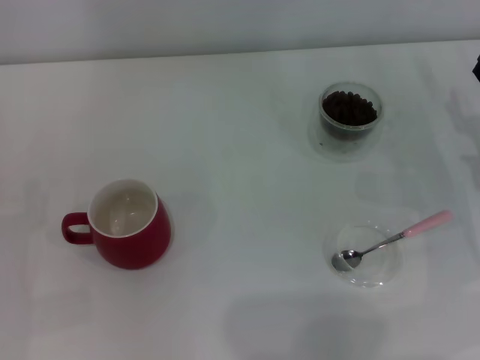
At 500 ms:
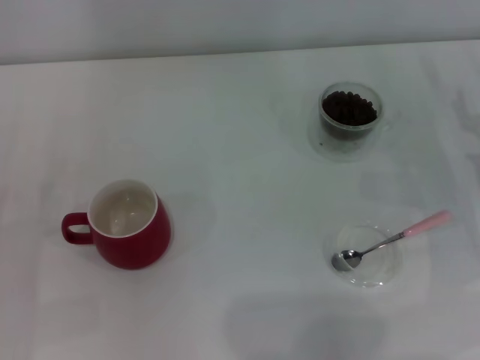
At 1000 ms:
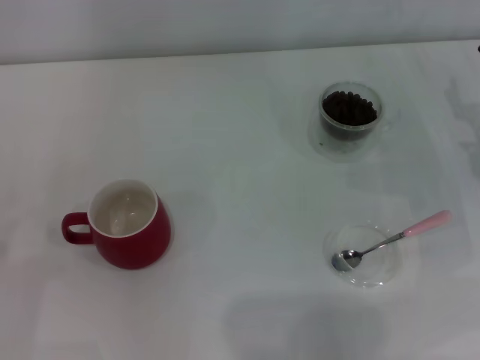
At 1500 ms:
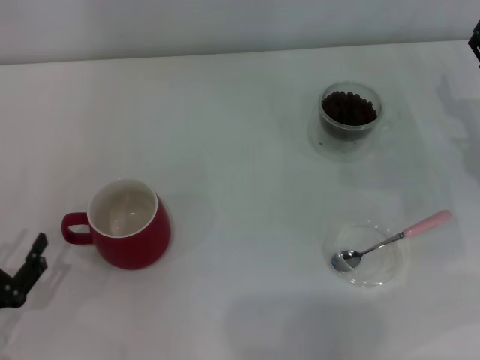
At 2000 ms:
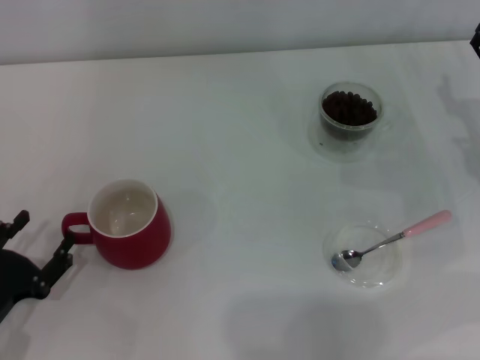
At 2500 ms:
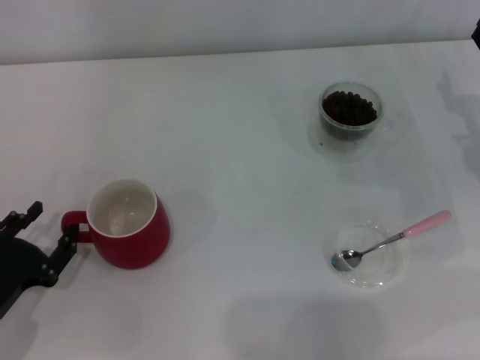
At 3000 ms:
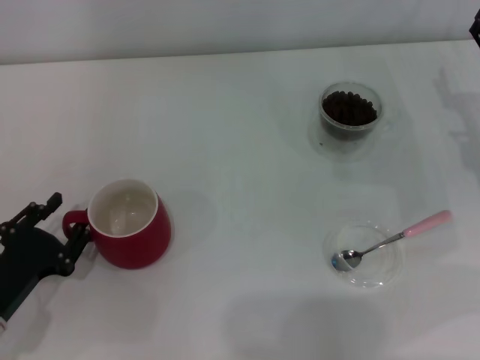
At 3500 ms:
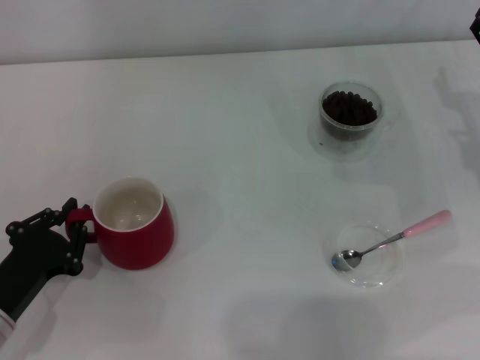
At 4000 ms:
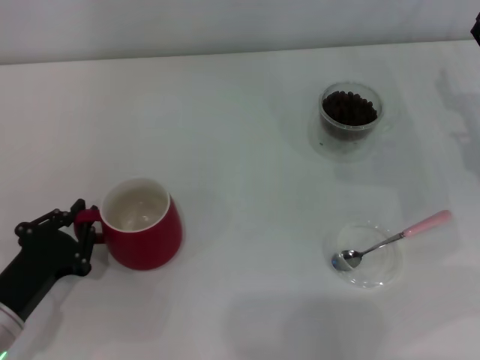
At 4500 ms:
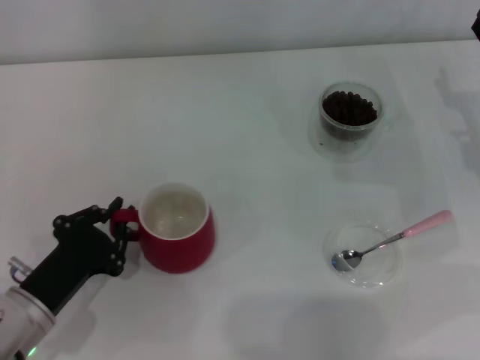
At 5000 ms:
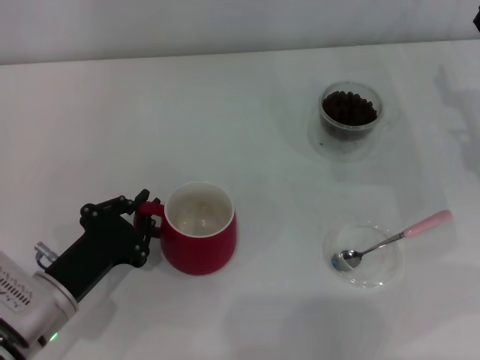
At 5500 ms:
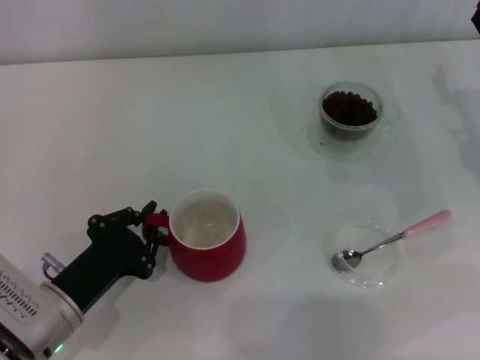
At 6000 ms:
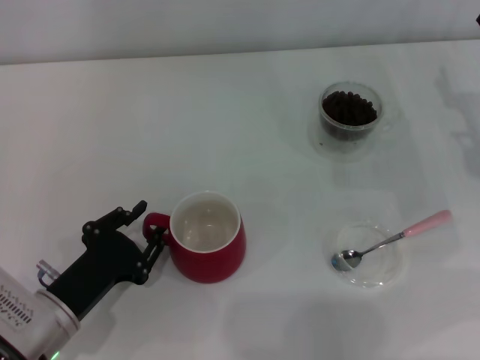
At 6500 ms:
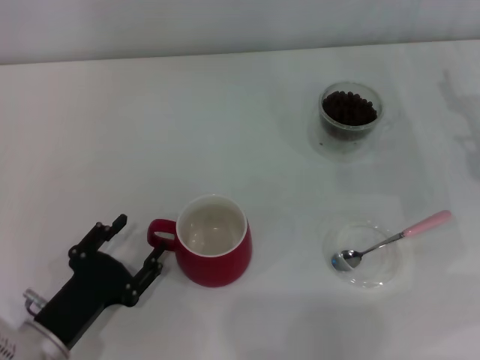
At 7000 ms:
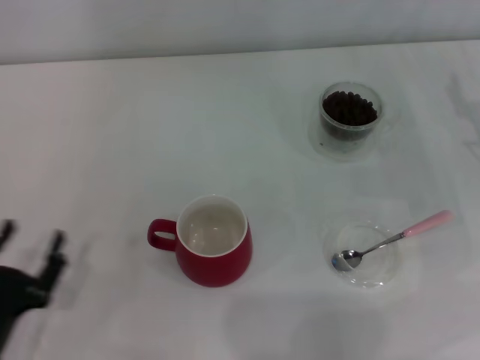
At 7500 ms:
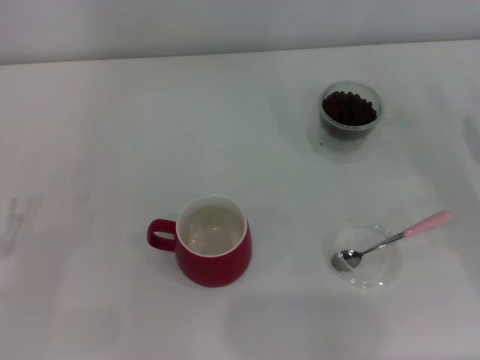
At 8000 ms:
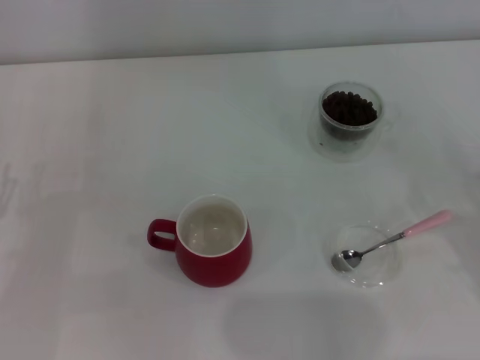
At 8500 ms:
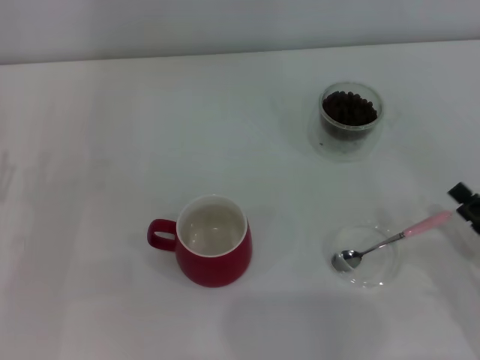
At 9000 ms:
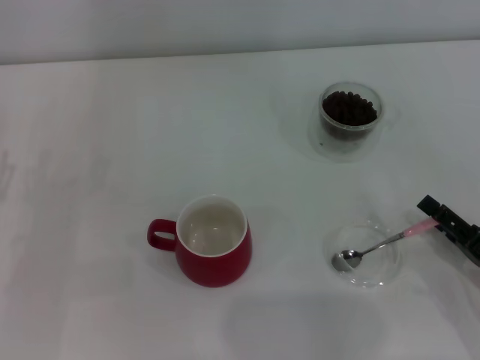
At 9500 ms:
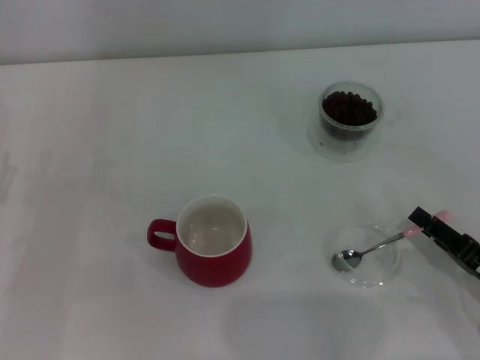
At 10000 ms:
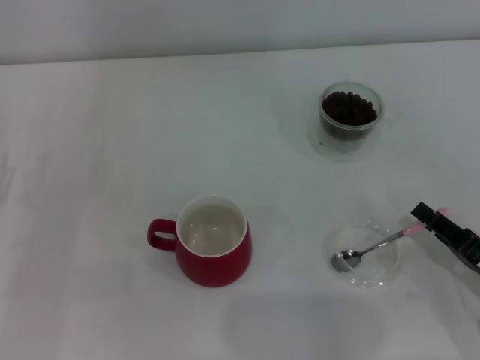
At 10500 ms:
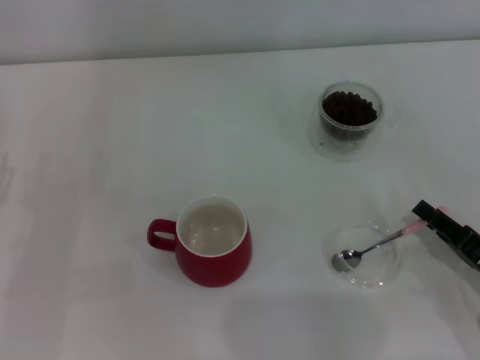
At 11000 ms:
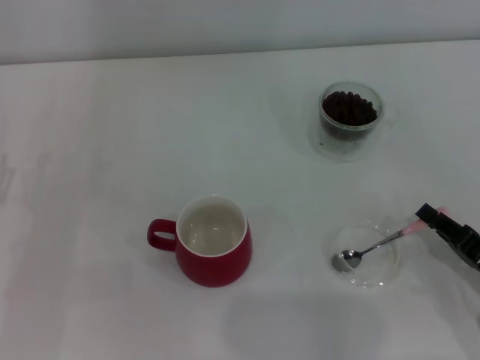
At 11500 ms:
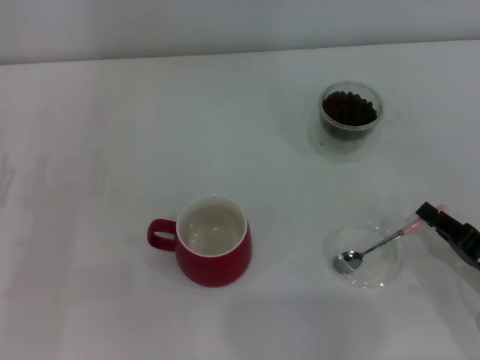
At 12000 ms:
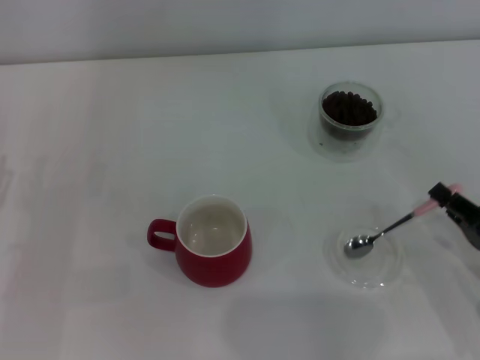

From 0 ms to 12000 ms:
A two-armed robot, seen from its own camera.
Task of the whole recording: Use a pink spoon to take out the coffee beans from the glass and pour them into the red cup.
Step, from 0 ms to 6500 ms: Move the cup to the center of view with the left gripper.
From 0 ms to 2000 ms: The left gripper ends up about 5 cm from where it was.
From 2000 ms to 4000 ms: The left gripper closes its fingers.
From 4000 ms to 6000 ms: The grippers move only a little.
From 6000 ms to 8000 ms: The right gripper moves backward, roughly 15 cm; the left gripper is displaced to the left by approximately 10 cm, and opens.
From 8000 ms to 10000 ms: The right gripper moves about 5 cm, and closes up.
From 10000 ms to 12000 ms: The right gripper closes its fingers.

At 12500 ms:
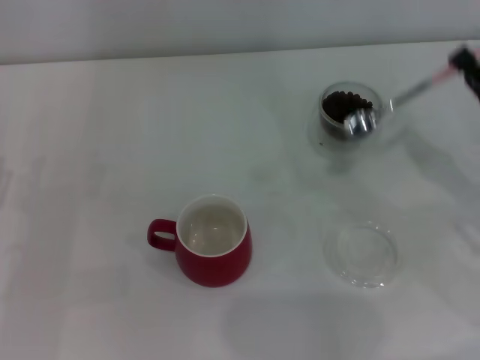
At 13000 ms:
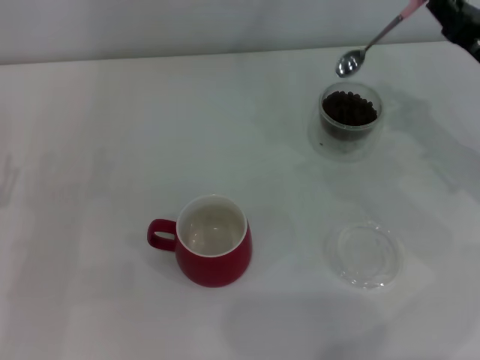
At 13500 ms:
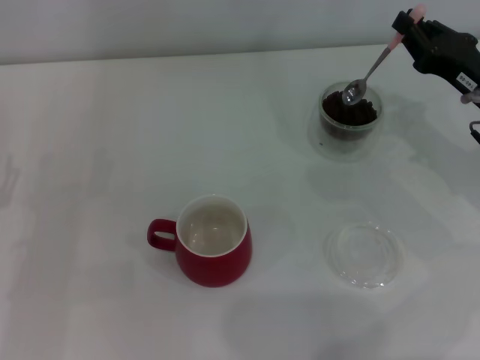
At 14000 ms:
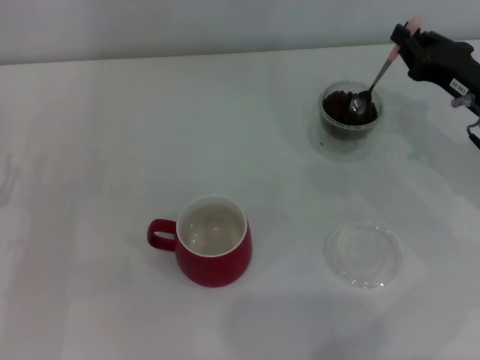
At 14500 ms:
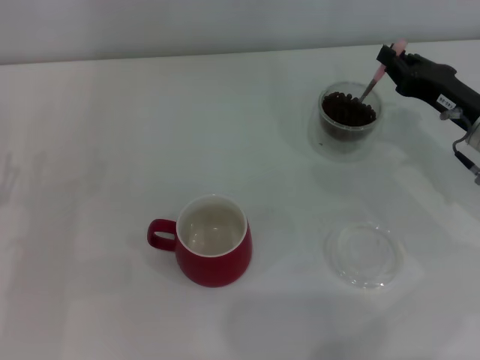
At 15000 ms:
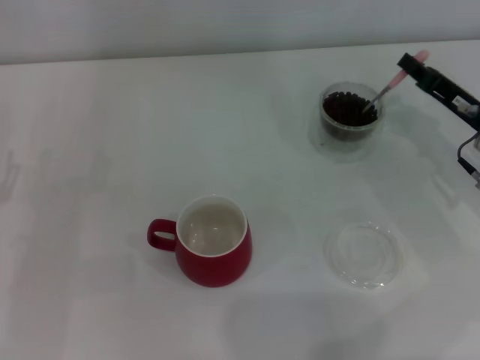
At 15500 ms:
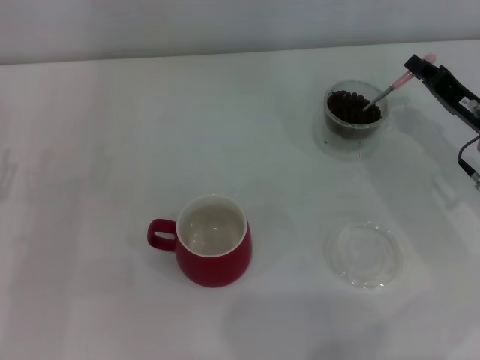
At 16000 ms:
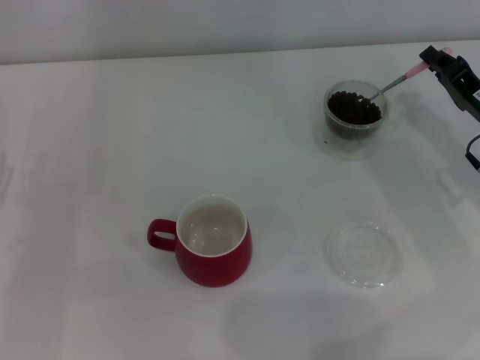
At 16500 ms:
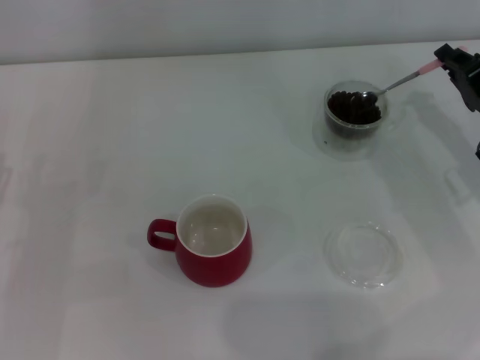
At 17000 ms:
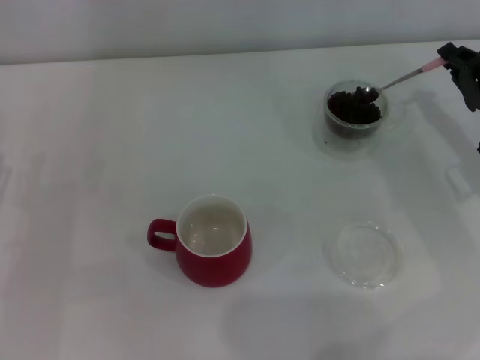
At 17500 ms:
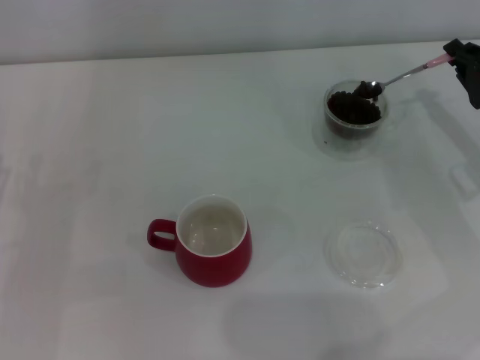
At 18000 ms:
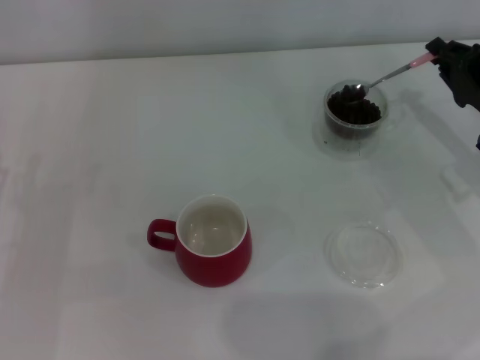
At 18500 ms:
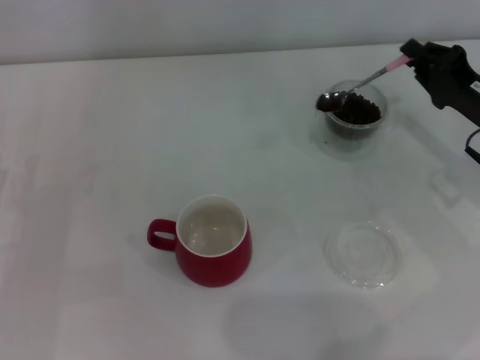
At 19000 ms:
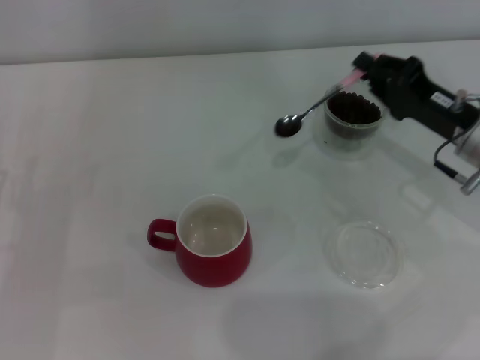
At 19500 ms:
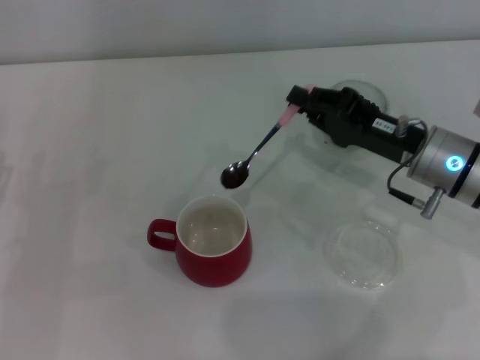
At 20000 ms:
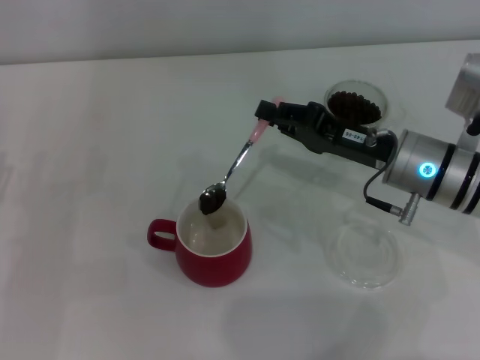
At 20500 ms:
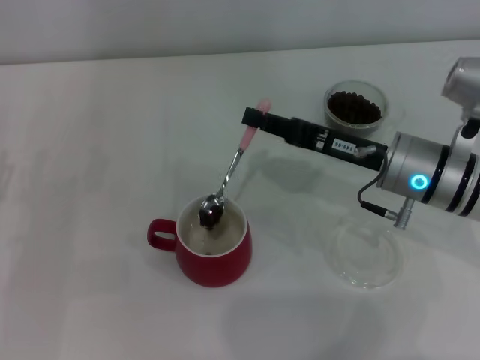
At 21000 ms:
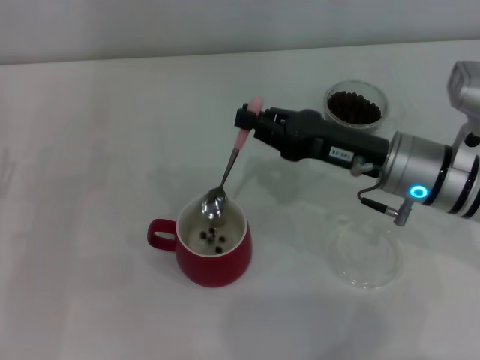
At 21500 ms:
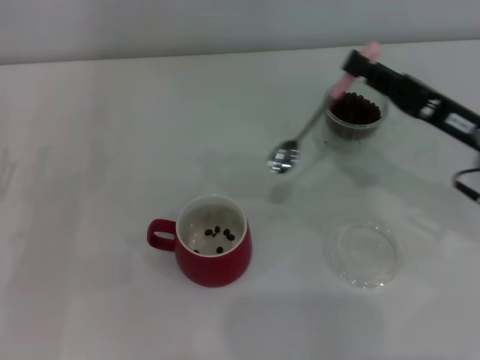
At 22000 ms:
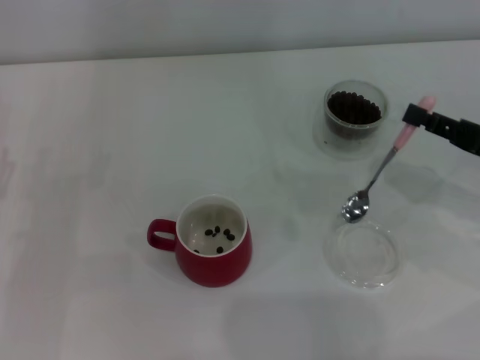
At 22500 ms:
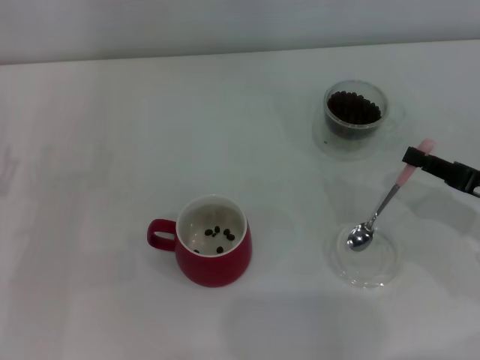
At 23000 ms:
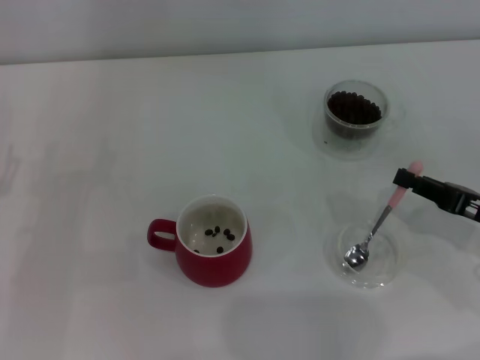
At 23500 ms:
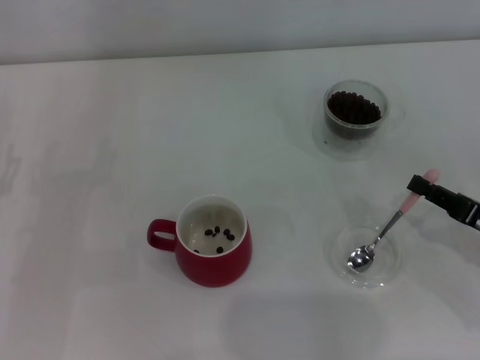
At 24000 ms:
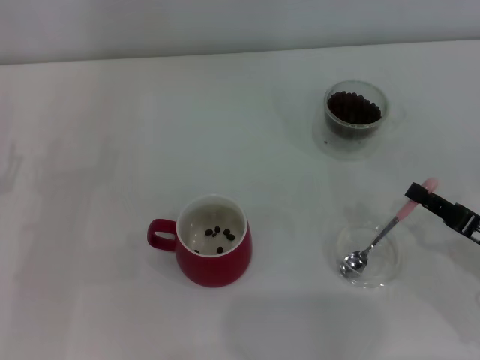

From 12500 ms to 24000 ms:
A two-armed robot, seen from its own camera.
Task of the whole recording: Use a pink spoon to take out the coffee beans from the glass and pour them into the red cup.
Step, from 12500 ms to 21000 ms: Scoop a spoonful of beans into the cup with the right gripper.
From 12500 ms to 14500 ms: The right gripper shifts about 10 cm forward.
From 16500 ms to 18500 ms: The grippers move only a little.
From 18500 ms to 20000 ms: The right gripper shifts approximately 10 cm to the left.
From 20000 ms to 22000 ms: The right gripper travels to the right and backward by roughly 15 cm.
From 22000 ms to 24000 ms: The right gripper shifts roughly 10 cm backward and downward.

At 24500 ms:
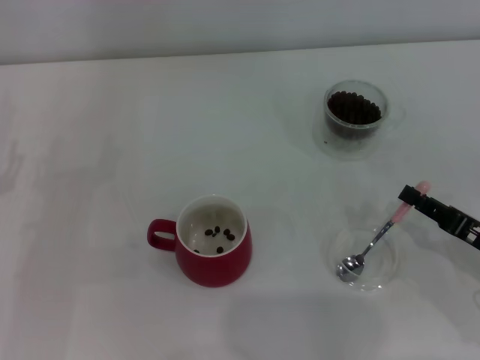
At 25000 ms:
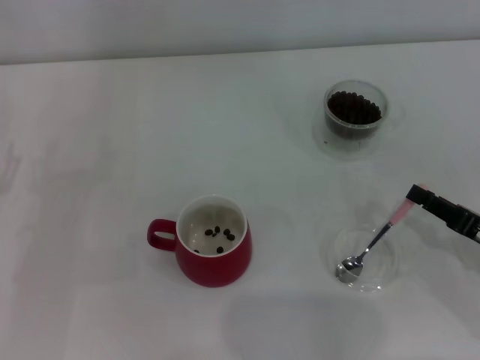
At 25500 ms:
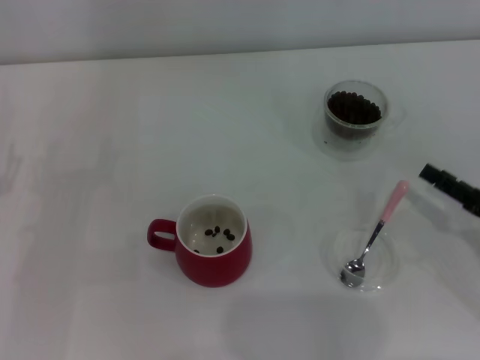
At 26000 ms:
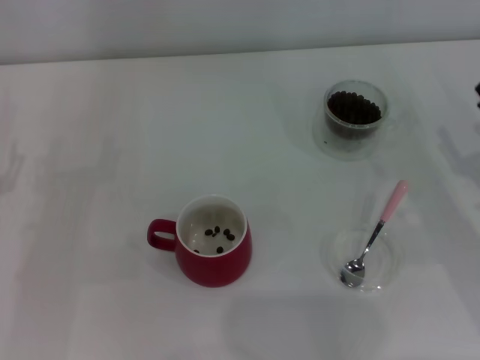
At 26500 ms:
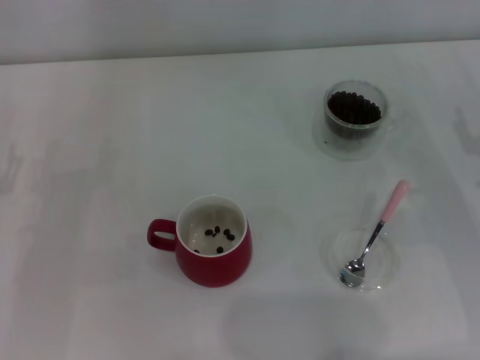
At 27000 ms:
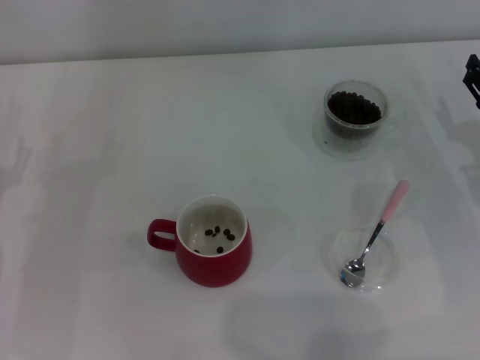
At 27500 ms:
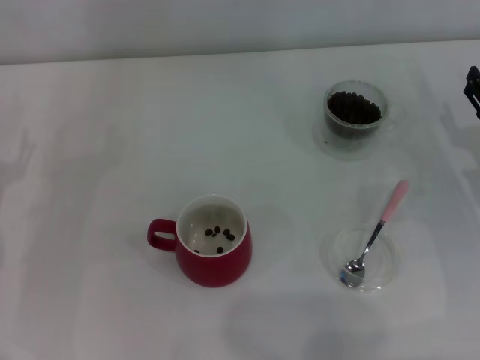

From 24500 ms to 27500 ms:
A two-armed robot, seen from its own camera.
Task of the whole recording: Use a pink spoon to take out the coffee beans from the glass and pour them into the red cup.
From 24500 ms to 26000 ms: The right gripper ends up roughly 5 cm from where it was, and opens its fingers.
